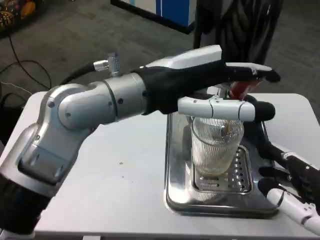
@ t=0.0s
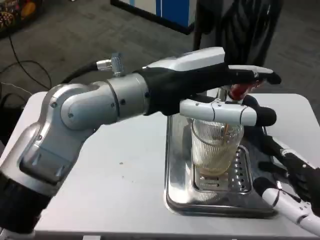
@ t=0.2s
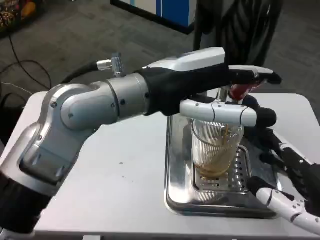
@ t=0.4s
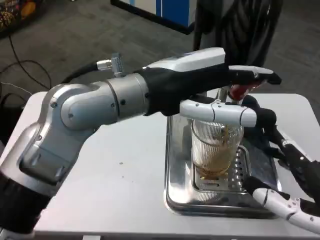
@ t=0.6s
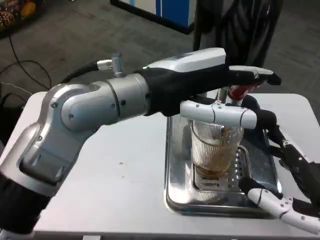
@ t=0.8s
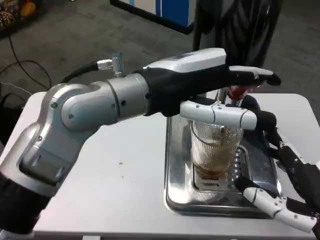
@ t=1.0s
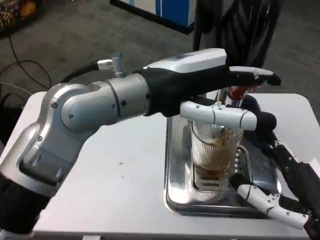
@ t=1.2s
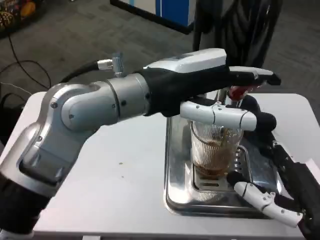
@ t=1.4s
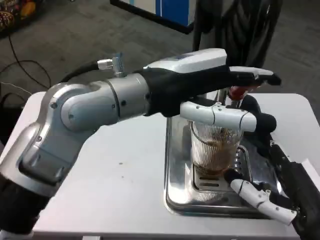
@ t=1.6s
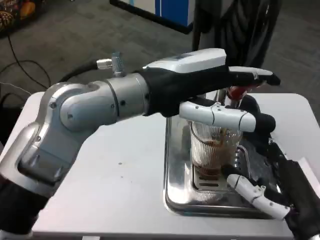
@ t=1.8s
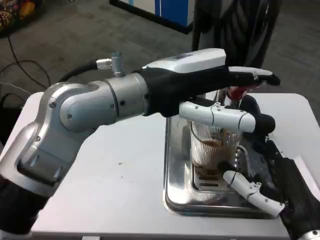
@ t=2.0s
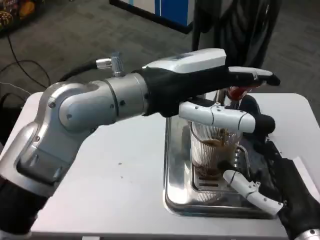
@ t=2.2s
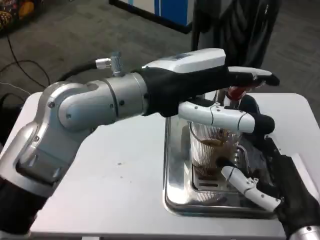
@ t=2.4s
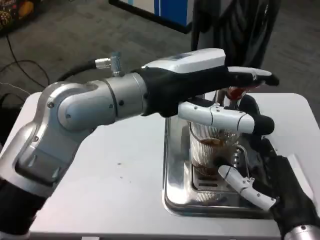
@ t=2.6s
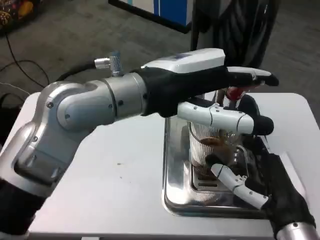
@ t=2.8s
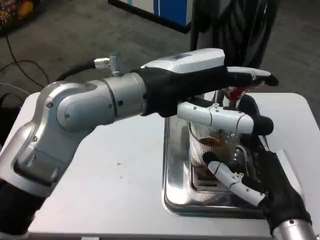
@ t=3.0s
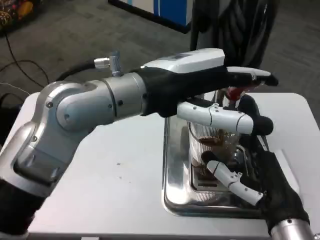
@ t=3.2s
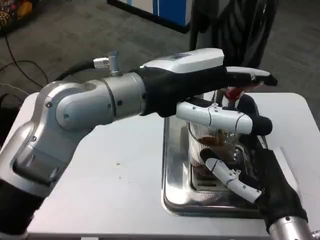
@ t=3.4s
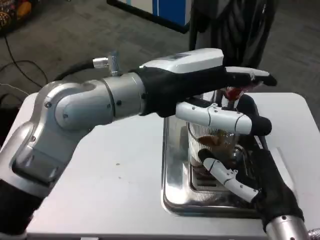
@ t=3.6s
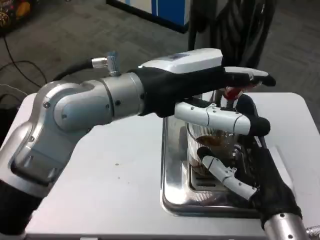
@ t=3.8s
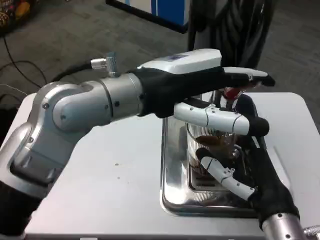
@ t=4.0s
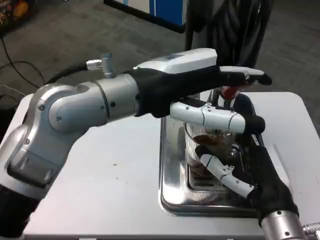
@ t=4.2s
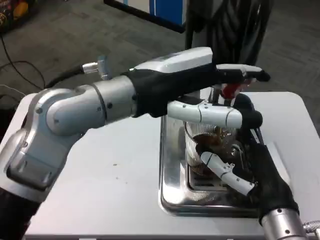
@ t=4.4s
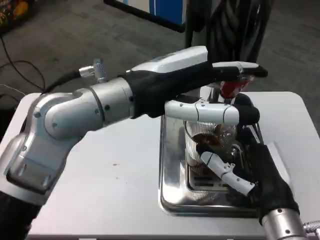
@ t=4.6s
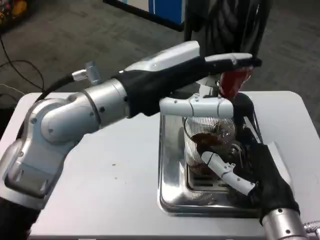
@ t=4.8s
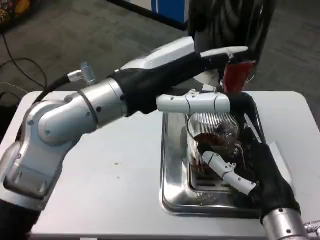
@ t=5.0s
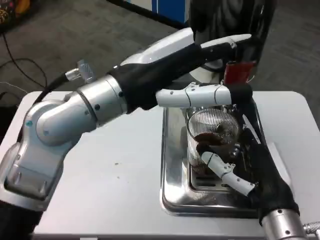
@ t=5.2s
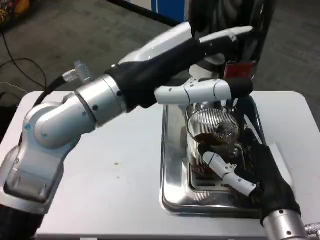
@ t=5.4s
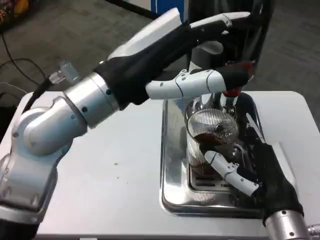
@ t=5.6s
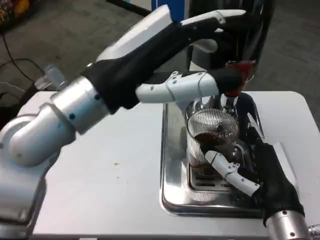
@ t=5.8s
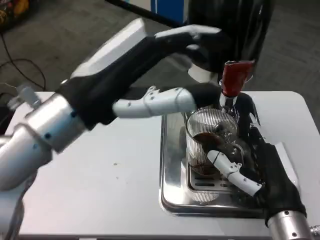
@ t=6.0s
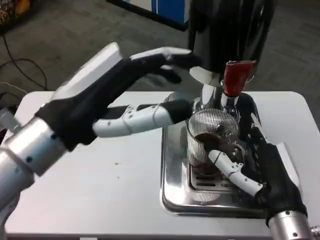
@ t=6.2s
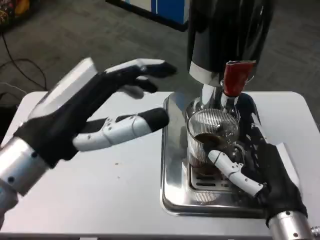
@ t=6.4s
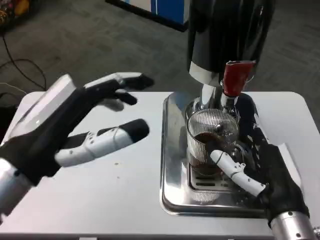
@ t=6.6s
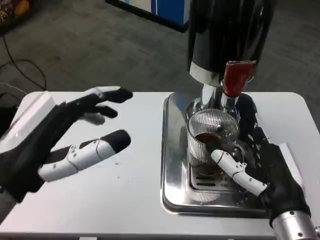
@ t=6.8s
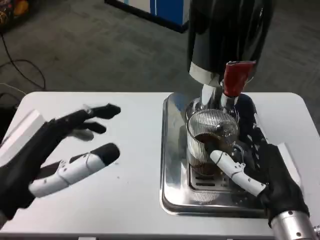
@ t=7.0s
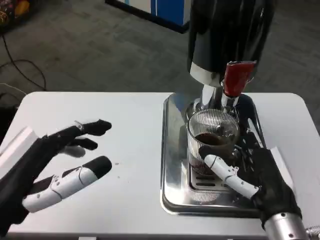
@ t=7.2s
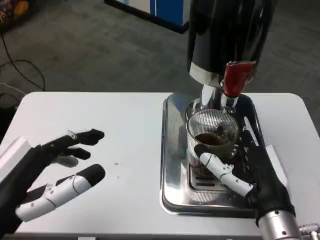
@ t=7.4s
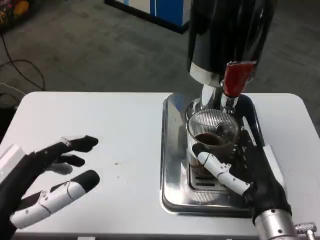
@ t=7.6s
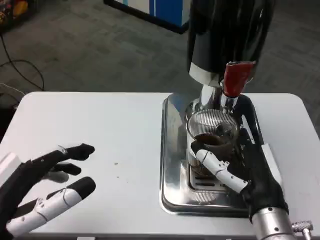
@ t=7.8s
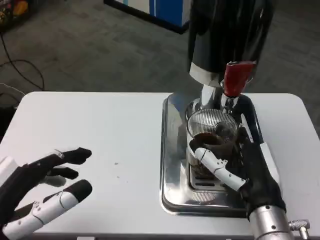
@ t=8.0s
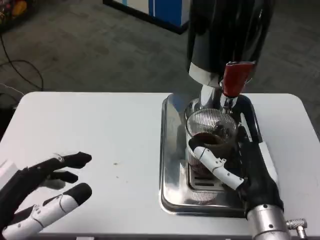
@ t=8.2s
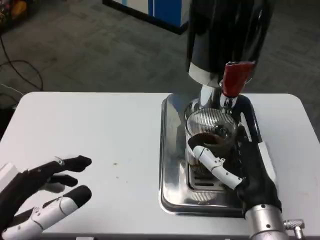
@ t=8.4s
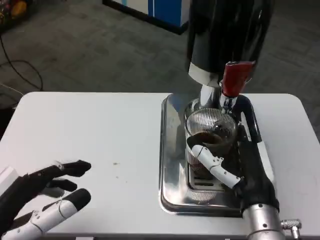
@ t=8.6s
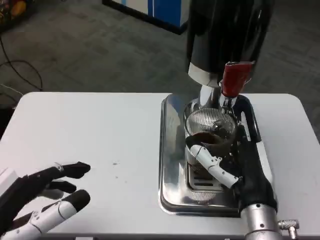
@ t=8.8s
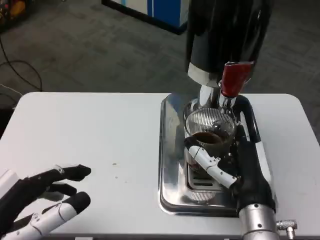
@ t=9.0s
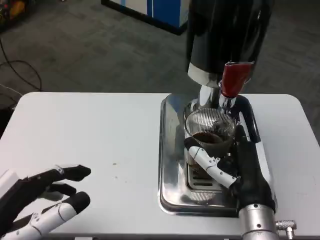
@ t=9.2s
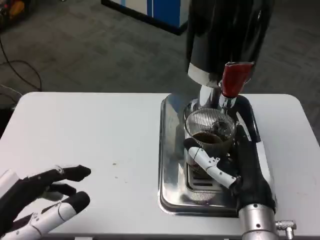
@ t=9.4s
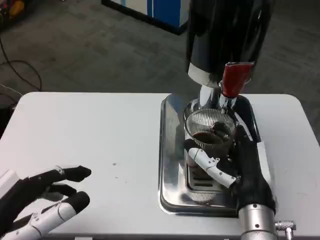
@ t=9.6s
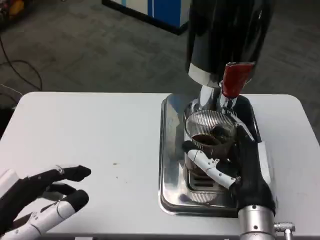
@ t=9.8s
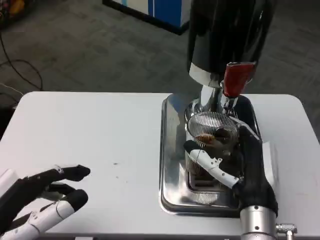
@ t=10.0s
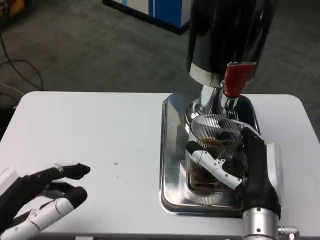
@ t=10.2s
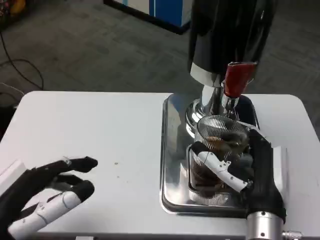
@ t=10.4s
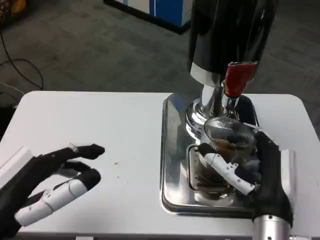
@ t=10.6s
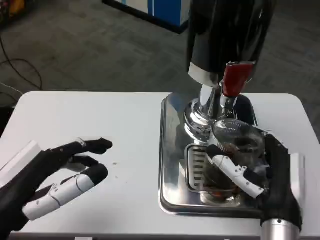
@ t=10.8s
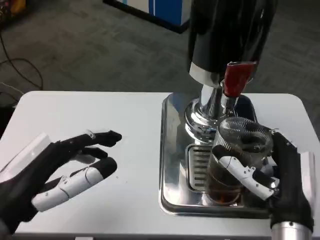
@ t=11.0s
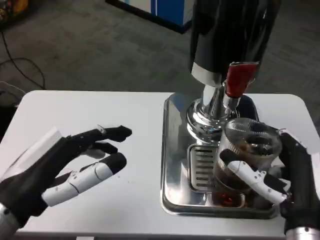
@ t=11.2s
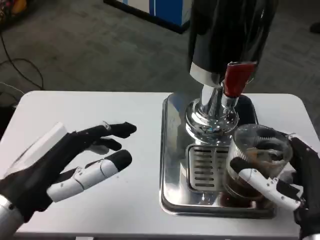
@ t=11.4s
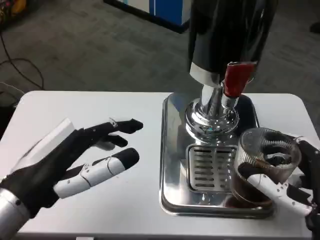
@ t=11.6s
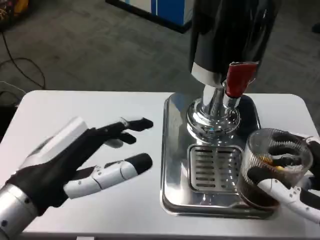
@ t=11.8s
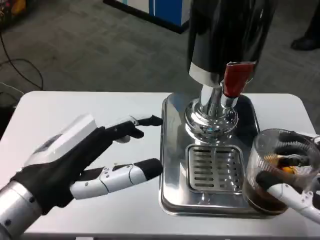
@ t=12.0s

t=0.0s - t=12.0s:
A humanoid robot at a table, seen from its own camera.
Task of the whole recording: Grasp the cup under the faucet to collect the drink, then remove the cup.
t=0.0s - t=1.6s: The right hand travels to the left by about 5 cm.
t=1.6s - t=3.0s: The right hand moves roughly 5 cm.
t=4.4s - t=6.0s: The left hand shifts by approximately 5 cm.
t=6.0s - t=7.6s: The left hand heads downward, backward and to the left, covering roughly 15 cm.
t=9.0s - t=10.4s: The hands stay close to where they were, moving slightly.
t=10.4s - t=12.0s: The right hand shifts about 15 cm to the right and backward, while the left hand moves roughly 5 cm.

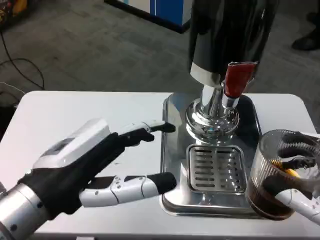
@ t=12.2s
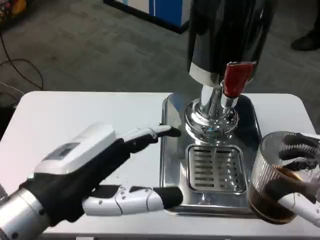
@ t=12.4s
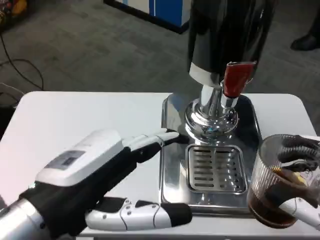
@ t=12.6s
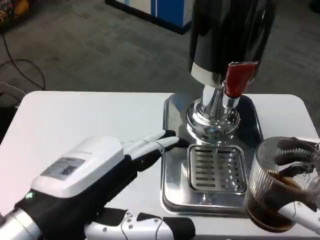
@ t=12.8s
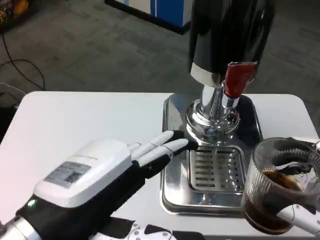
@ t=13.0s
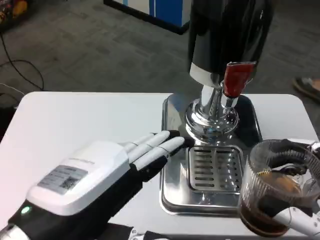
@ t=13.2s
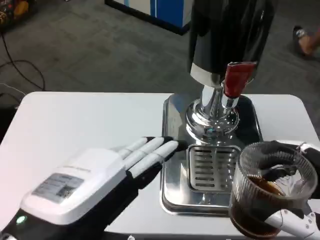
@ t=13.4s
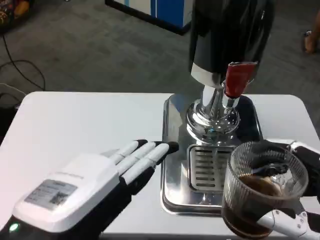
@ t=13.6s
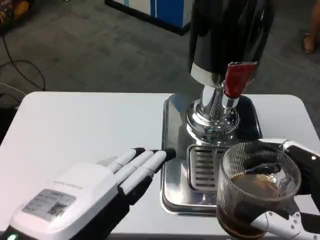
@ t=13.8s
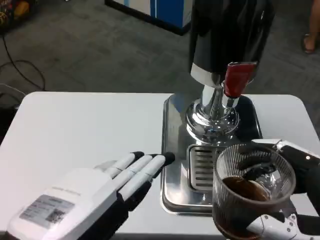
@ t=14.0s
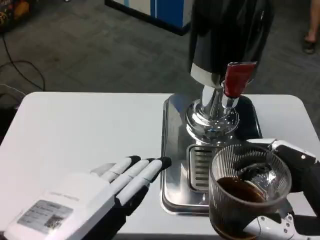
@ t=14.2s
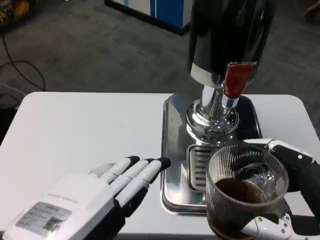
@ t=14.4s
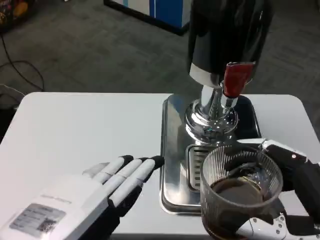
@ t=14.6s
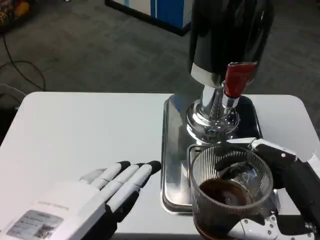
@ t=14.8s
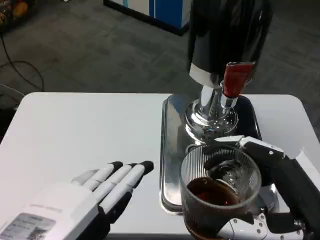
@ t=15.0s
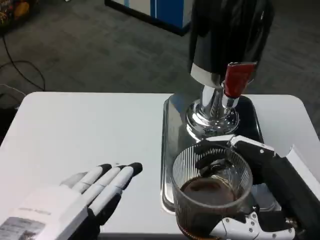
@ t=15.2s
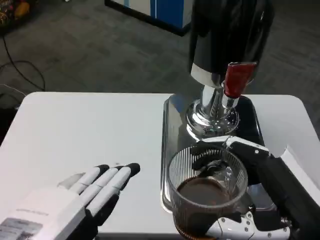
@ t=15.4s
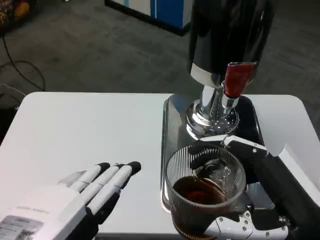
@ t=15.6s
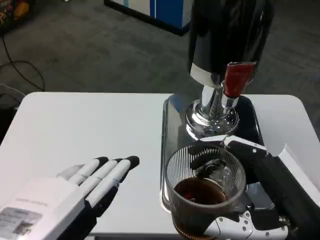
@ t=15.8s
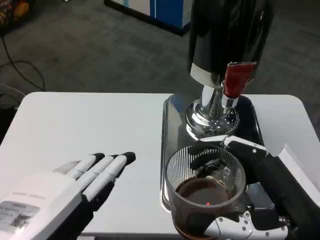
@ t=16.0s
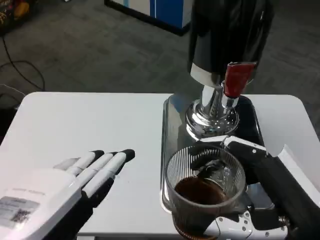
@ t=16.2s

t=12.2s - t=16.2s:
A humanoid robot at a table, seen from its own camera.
Task of the whole recording: Grasp the cup under the faucet to collect the drink, then remove the cup.
t=12.2s - t=13.6s: The left hand travels backward by approximately 10 cm.
